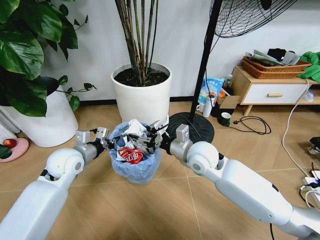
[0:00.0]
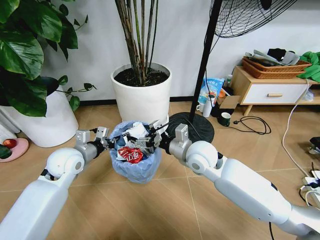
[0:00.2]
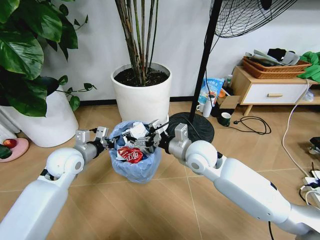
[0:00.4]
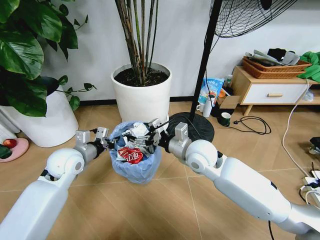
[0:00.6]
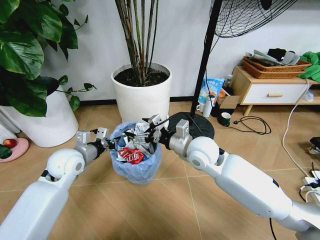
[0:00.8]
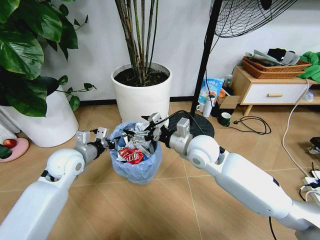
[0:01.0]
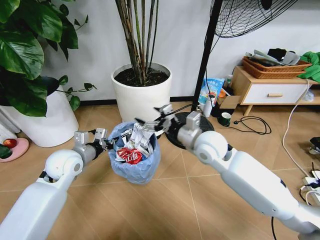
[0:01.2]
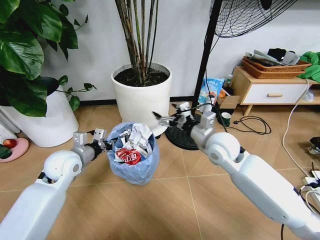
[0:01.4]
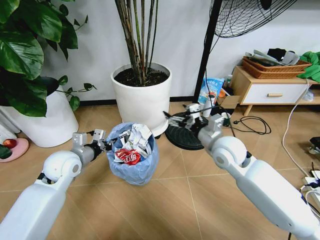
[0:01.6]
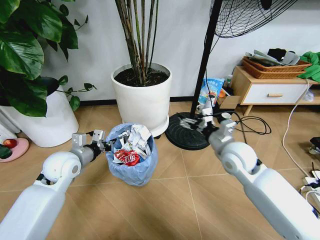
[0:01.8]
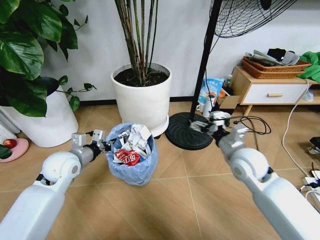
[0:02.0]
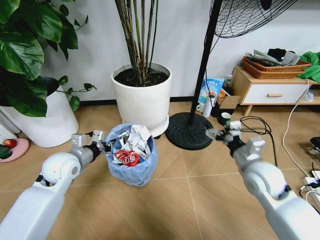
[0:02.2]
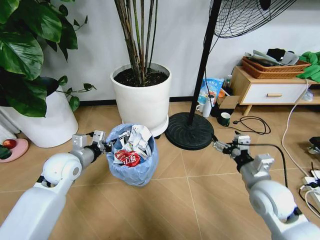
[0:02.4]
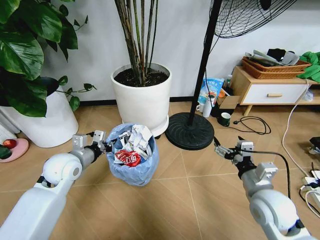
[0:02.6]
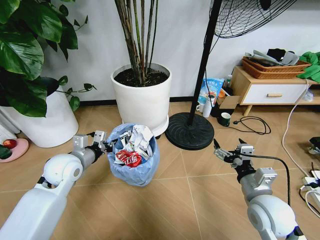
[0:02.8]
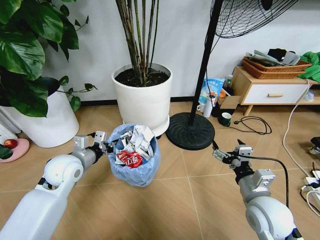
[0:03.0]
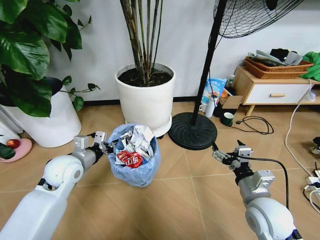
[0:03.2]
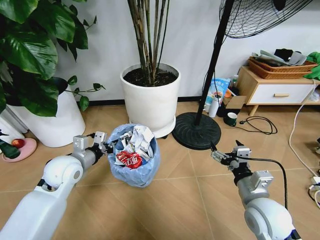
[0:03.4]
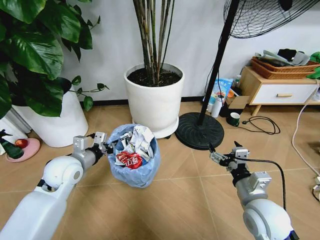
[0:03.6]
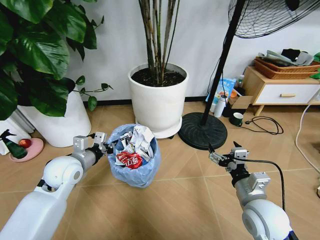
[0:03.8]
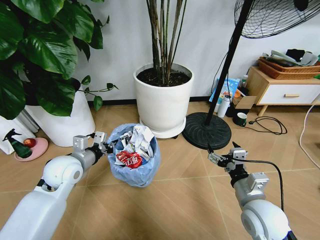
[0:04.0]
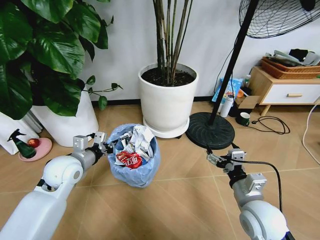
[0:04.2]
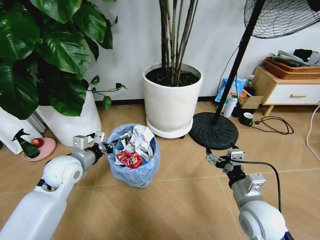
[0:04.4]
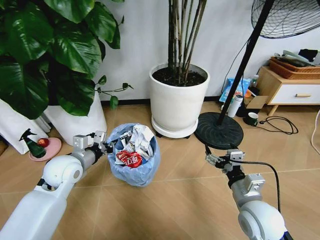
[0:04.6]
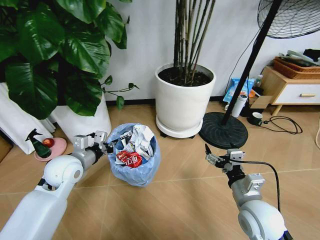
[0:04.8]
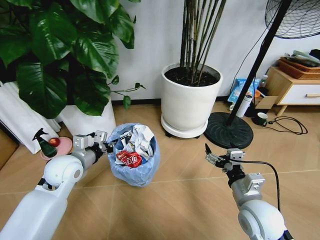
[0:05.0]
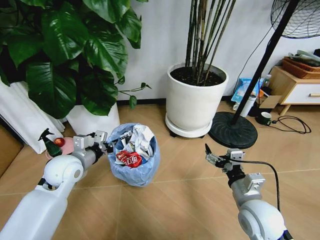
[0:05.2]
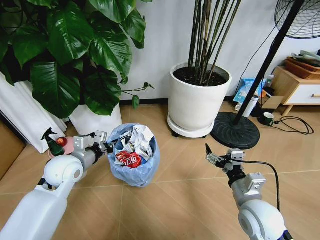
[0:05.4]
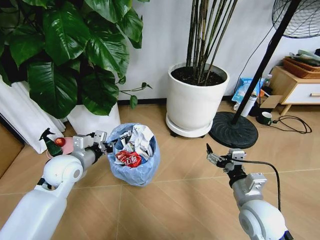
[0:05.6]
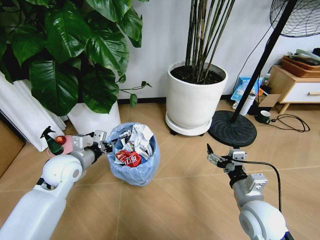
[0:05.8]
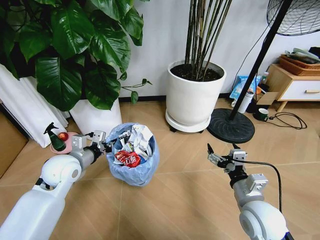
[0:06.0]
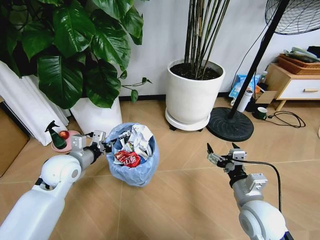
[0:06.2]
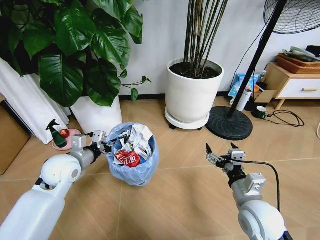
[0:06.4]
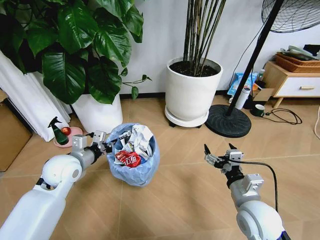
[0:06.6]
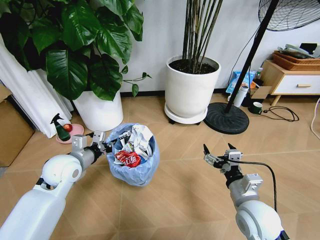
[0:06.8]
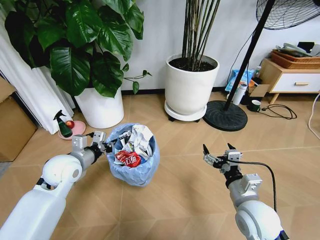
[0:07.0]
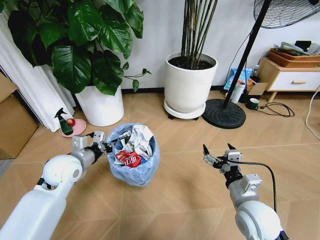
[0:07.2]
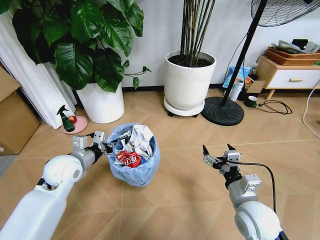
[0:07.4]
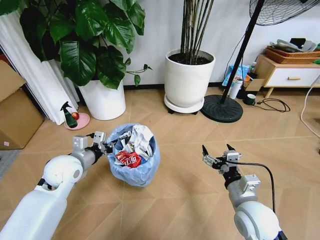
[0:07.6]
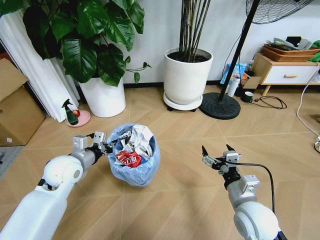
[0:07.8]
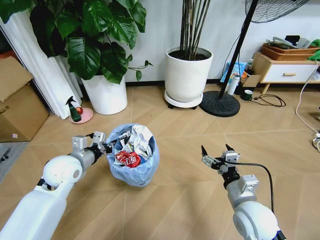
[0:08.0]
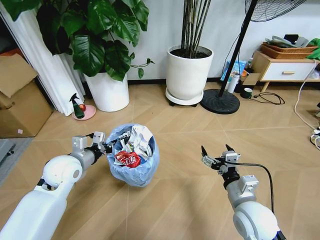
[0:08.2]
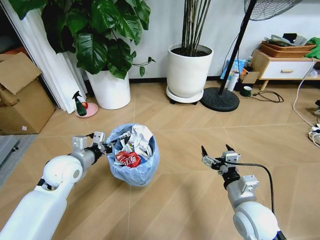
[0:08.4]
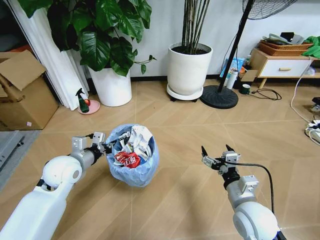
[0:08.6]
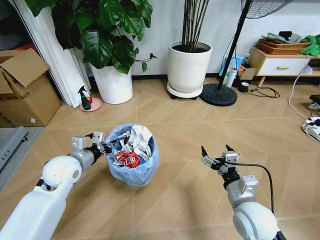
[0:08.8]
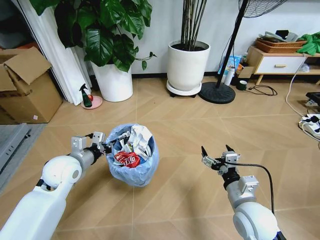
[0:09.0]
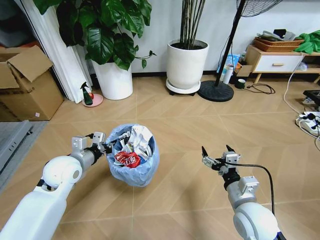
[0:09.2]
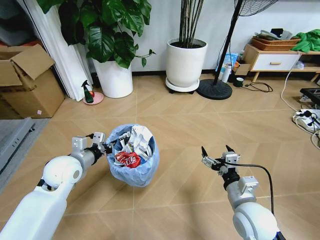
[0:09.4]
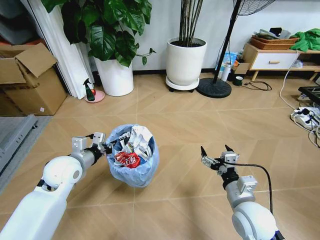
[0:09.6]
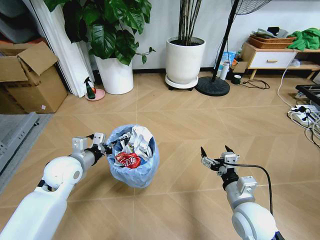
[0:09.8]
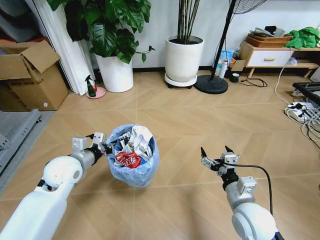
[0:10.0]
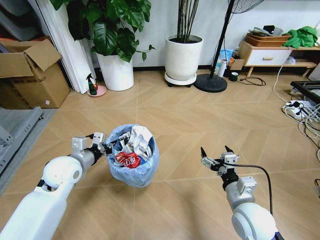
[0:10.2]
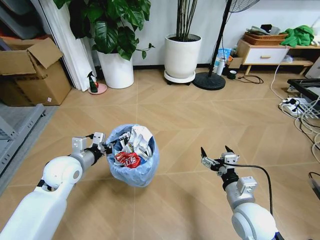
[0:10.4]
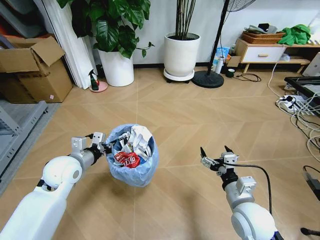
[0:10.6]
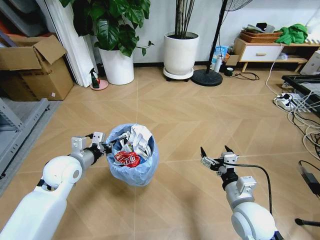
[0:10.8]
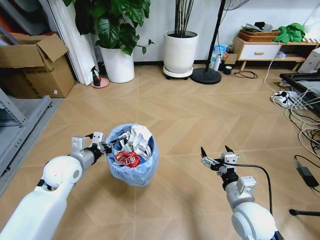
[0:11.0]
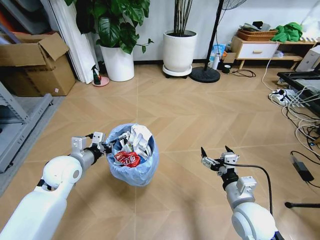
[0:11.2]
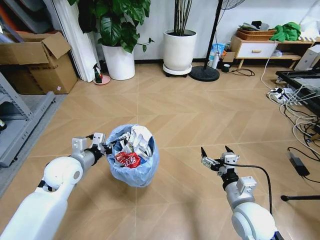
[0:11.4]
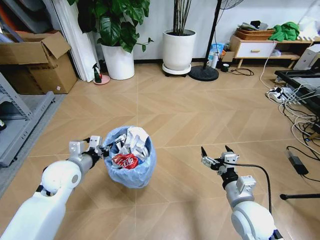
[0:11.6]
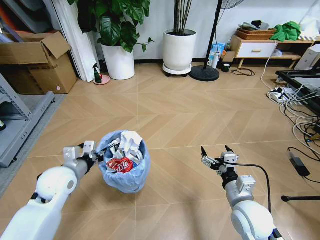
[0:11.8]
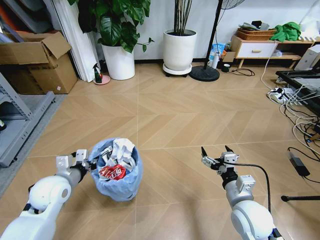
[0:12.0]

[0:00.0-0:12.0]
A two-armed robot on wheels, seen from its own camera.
Task of the whole recording: Pick up the trash bin and place the garbage on the floor into it.
0:00.0 to 0:01.6: The right gripper goes approximately 10 cm to the right.
0:01.6 to 0:03.0: The right gripper goes some 20 cm backward and to the right.
0:10.4 to 0:12.0: The left gripper moves approximately 5 cm.

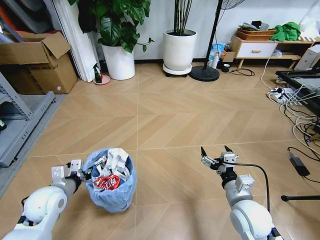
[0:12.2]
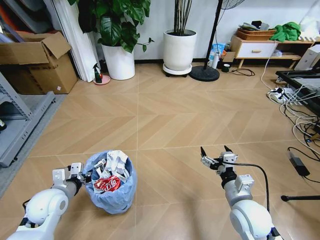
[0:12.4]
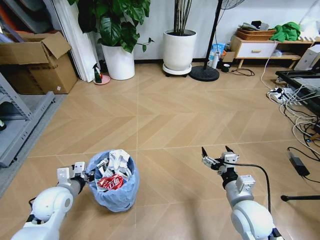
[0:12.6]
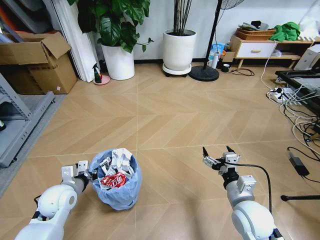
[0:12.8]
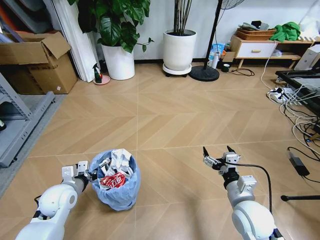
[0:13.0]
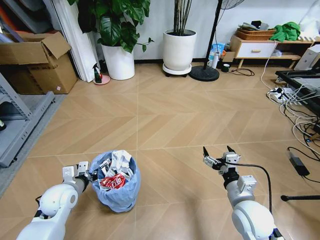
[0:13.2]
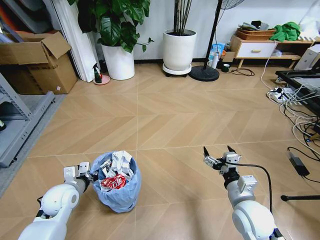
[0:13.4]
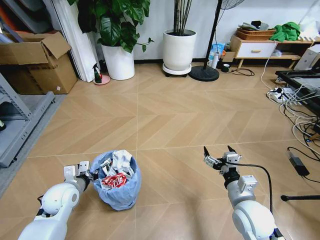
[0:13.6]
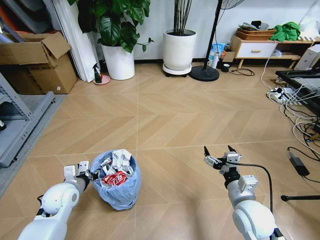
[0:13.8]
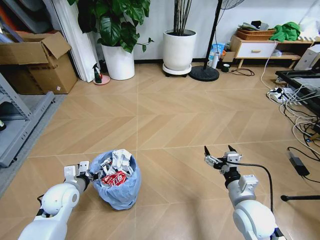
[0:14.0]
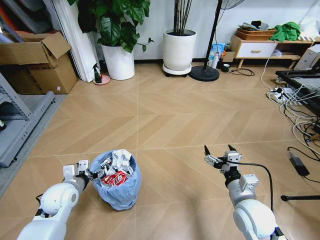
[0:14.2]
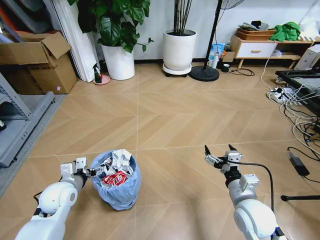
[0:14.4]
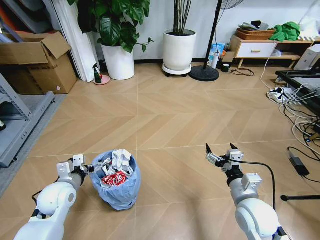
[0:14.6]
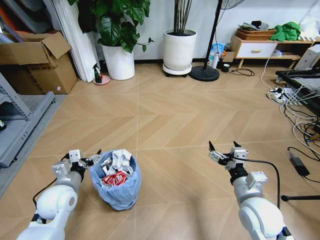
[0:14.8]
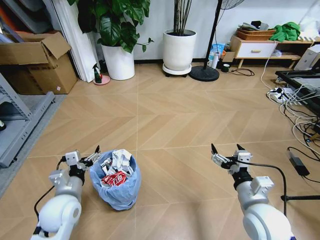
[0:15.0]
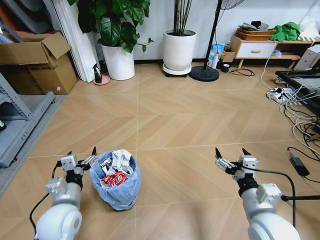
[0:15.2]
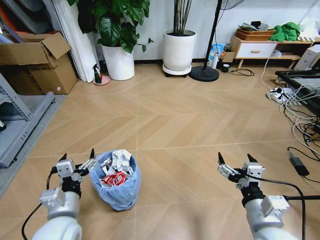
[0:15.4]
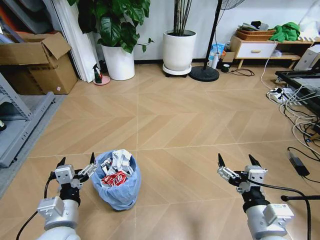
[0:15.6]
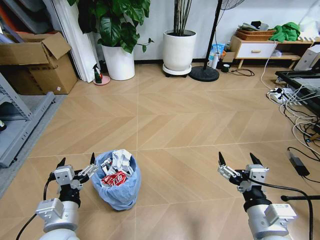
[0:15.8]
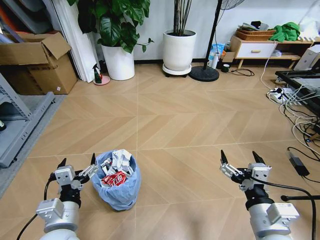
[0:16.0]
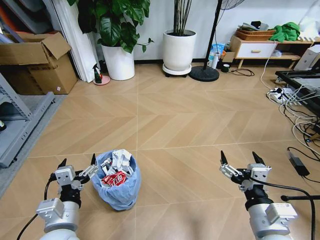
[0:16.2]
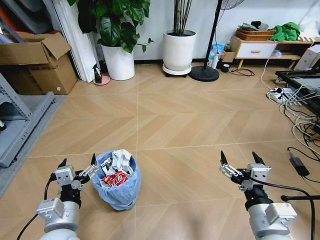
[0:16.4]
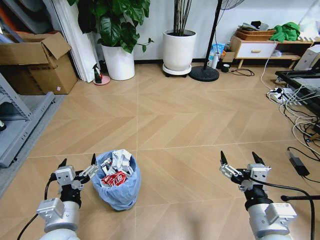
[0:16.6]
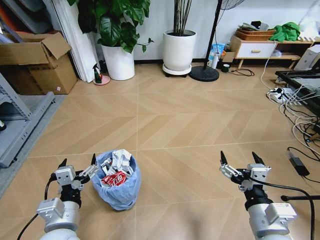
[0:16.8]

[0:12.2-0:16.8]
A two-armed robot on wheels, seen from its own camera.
Task of the whole recording: Pick up the trash bin and place the garbage on the floor into it.
0:12.2 to 0:13.8: The left gripper moves about 5 cm.
0:13.8 to 0:15.2: The right gripper ends up about 5 cm from where it was, while the left gripper is displaced backward and to the right by some 10 cm, and opens up.
0:15.2 to 0:16.8: The left gripper heads backward, covering some 5 cm, while the right gripper ends up some 5 cm from where it was.

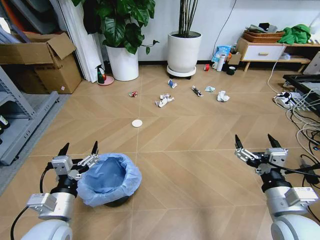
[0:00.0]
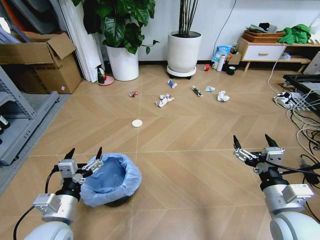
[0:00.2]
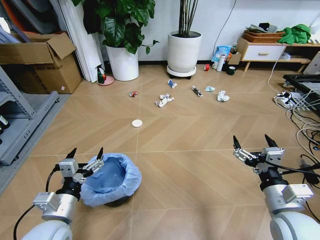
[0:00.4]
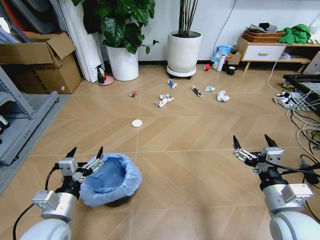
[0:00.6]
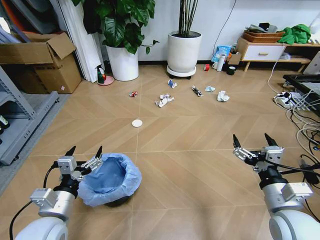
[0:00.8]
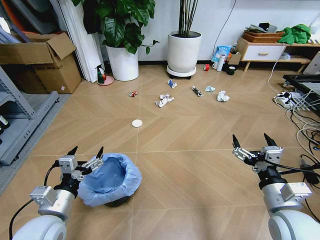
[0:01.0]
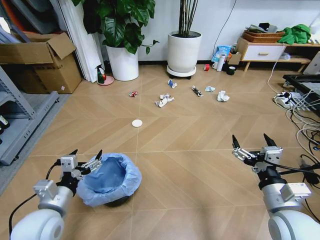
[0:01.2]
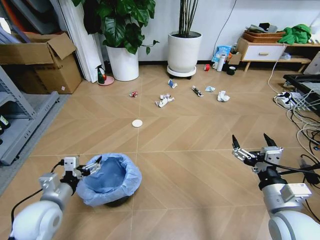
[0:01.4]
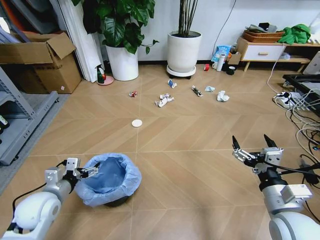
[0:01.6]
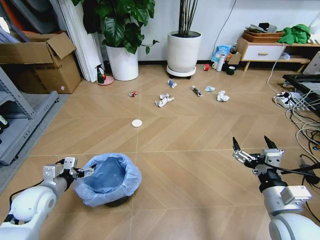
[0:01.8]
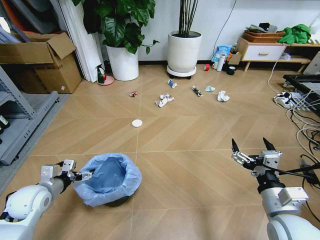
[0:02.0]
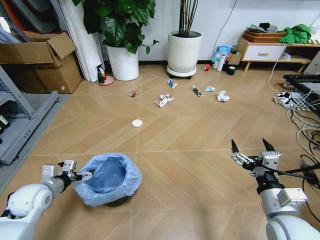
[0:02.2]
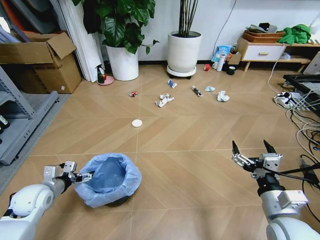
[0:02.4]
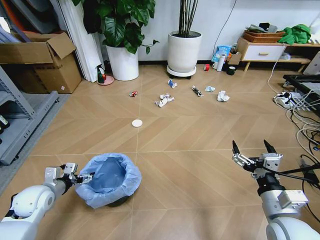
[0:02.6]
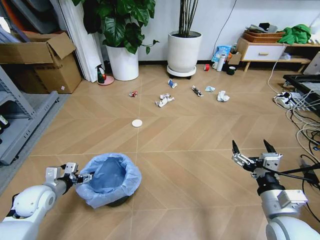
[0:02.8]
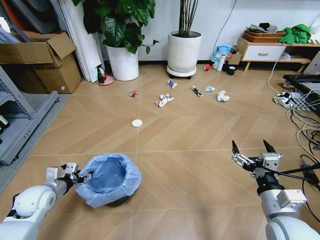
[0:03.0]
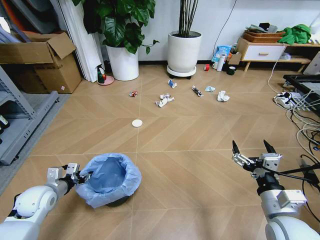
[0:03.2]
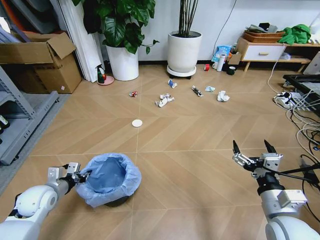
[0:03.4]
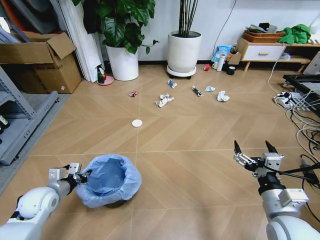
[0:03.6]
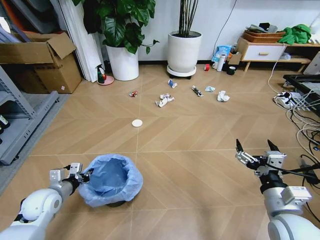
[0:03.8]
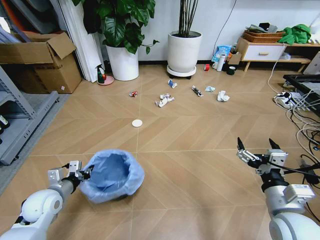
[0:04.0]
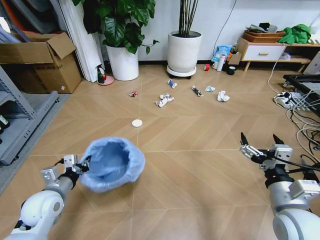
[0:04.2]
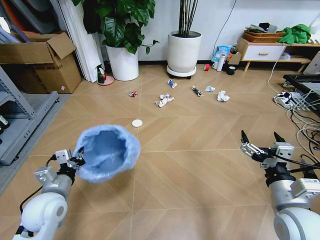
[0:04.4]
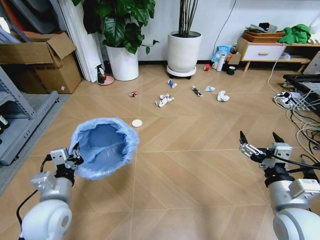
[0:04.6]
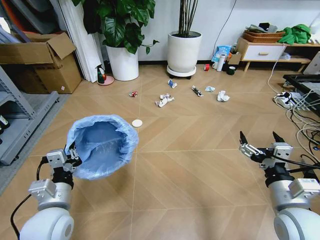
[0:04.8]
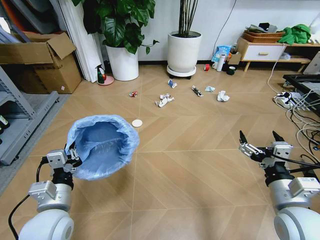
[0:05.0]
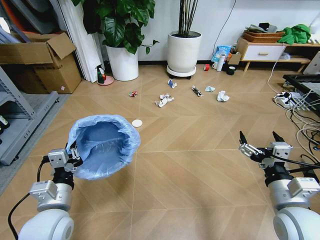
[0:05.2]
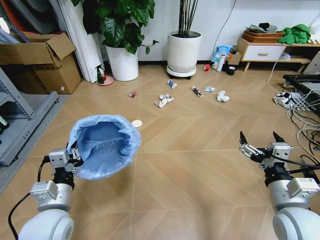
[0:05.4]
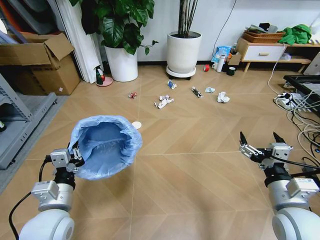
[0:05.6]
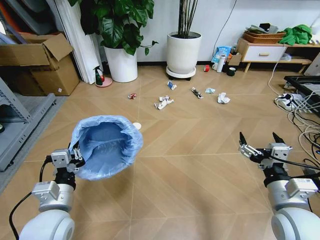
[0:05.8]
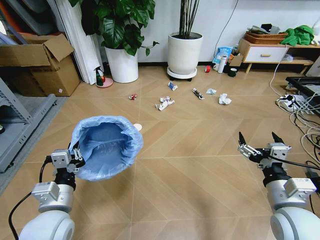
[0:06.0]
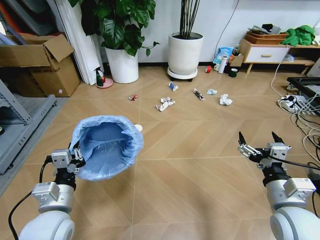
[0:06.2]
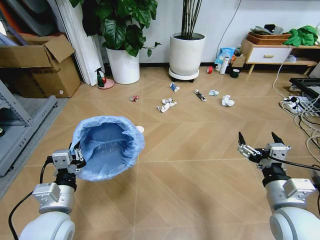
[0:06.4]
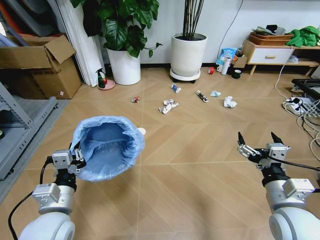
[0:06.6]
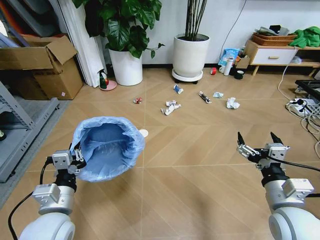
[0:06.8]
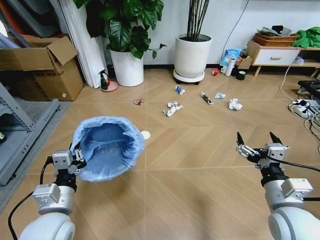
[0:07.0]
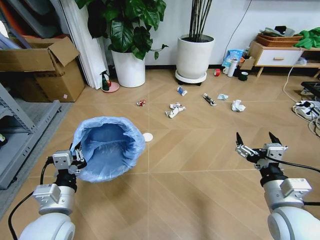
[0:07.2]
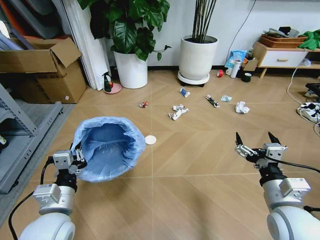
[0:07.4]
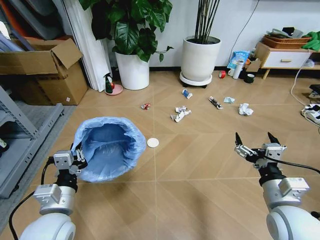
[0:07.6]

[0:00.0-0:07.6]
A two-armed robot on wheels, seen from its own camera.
Task of the whole recording: Pick up the trash bin and place the garbage on the floor into it.
0:01.6 to 0:03.0: The left gripper heads to the left, covering approximately 5 cm.
0:03.0 to 0:04.6: The left gripper travels to the right, backward and upward by about 15 cm, and closes up.
